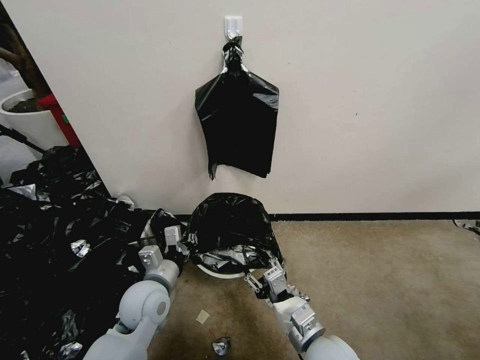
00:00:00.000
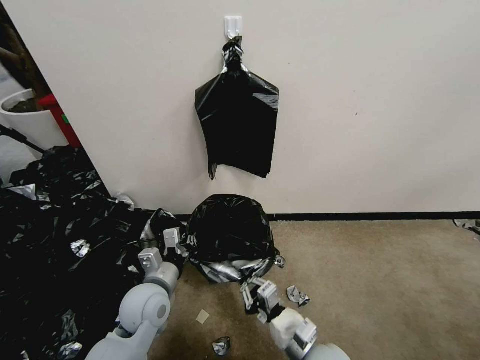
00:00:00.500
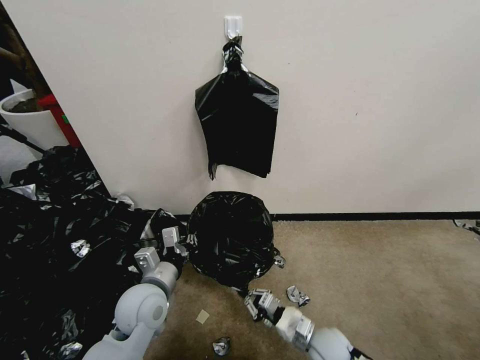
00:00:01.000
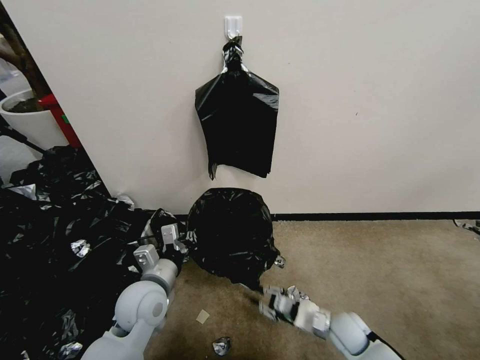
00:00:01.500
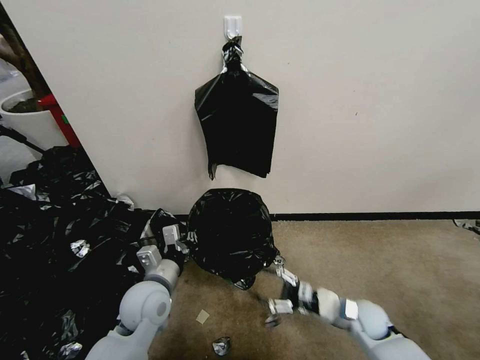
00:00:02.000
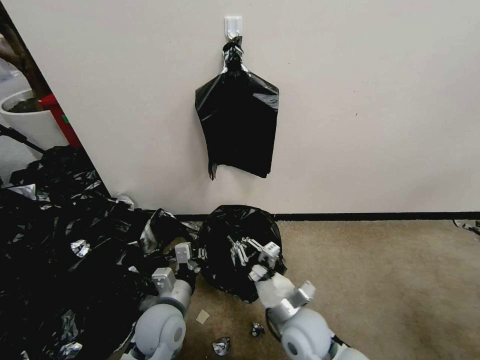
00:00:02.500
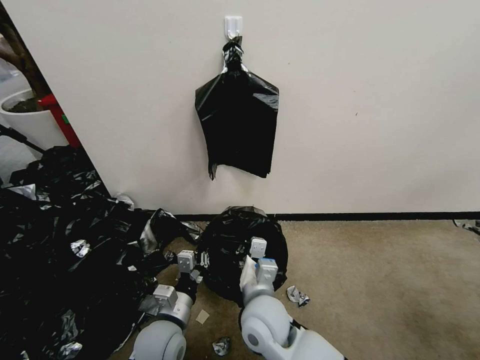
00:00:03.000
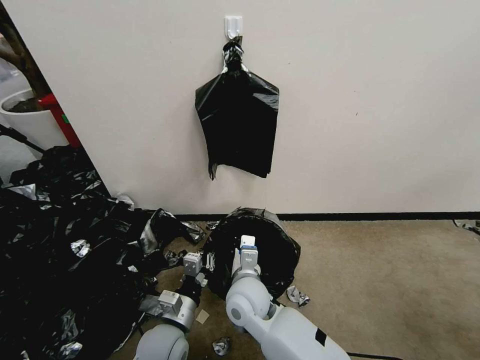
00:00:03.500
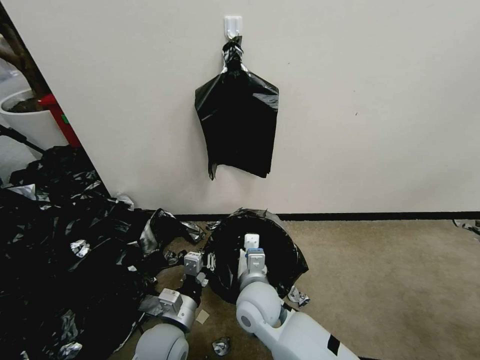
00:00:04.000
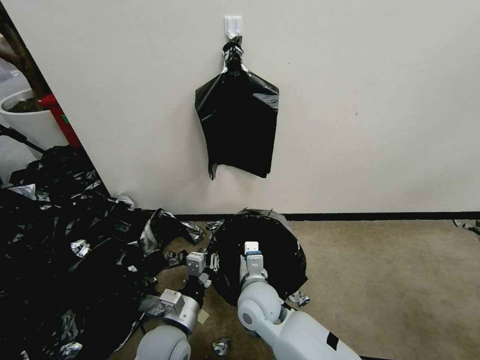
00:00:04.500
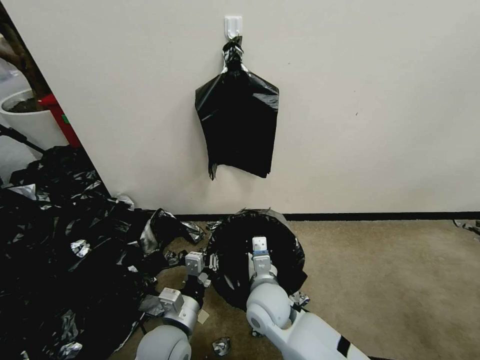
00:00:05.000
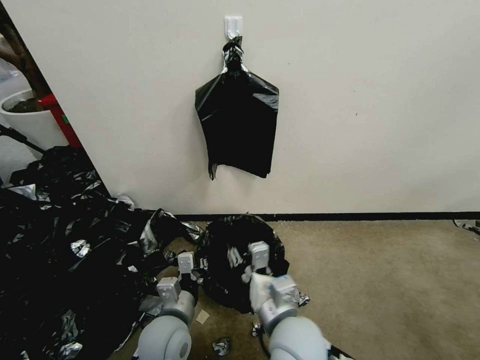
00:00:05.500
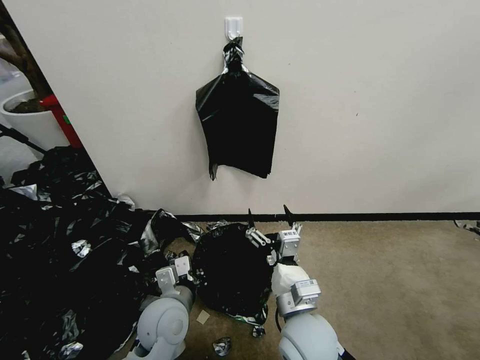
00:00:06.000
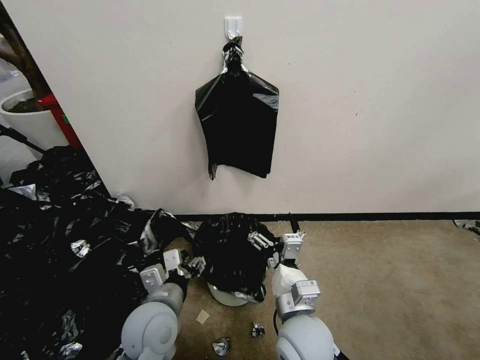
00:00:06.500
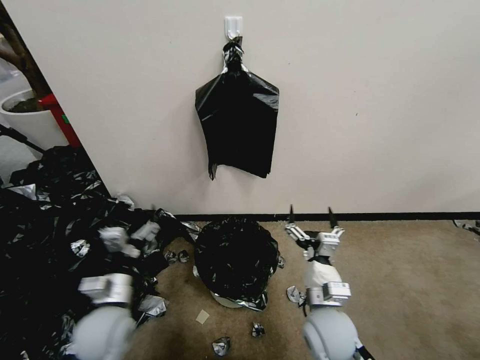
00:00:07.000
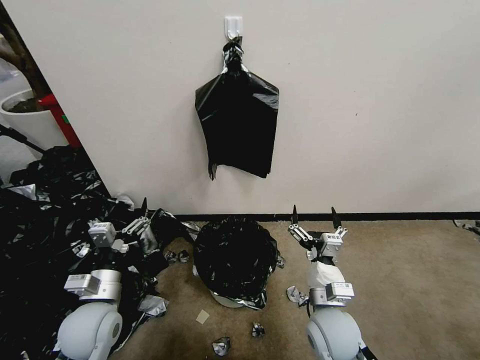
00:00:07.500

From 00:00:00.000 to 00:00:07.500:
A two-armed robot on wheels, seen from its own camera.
Task of the whole recording: Place a trash bag onto the trash bin.
From 00:00:00.000 to 00:00:02.000: The right gripper moves to the right, downward and forward, roughly 20 cm, and closes, then reopens.
From 00:00:02.000 to 00:00:04.000: The right gripper travels to the left by some 25 cm, and closes; the left gripper goes approximately 10 cm backward and downward.
From 00:00:04.000 to 00:00:05.500: The right gripper moves backward, upward and to the right, about 15 cm, and opens up.
From 00:00:05.500 to 00:00:07.500: The right gripper shifts some 10 cm to the right and downward, and opens, while the left gripper shifts about 15 cm to the left, and opens its fingers.
